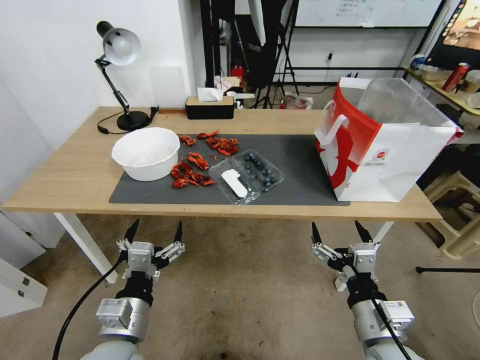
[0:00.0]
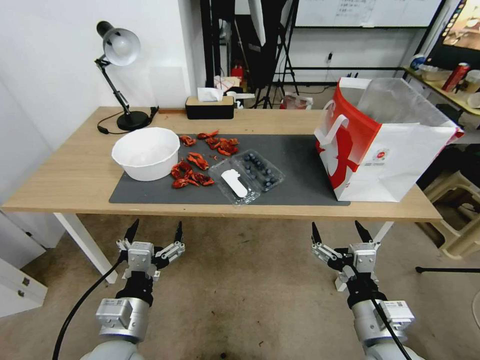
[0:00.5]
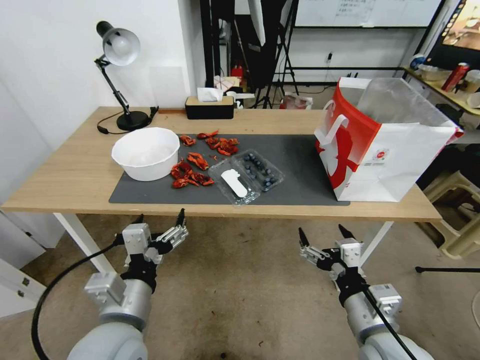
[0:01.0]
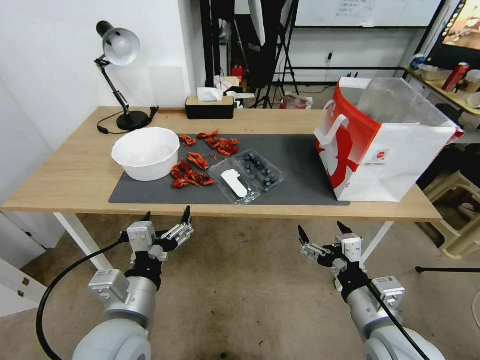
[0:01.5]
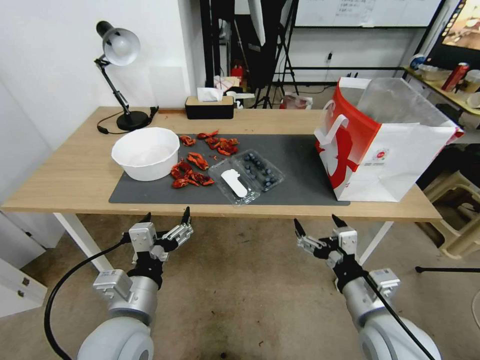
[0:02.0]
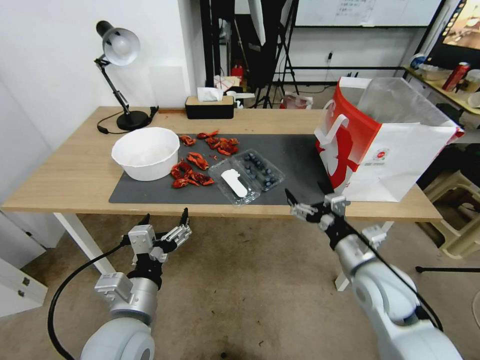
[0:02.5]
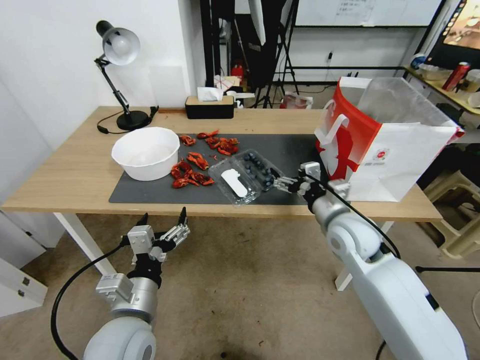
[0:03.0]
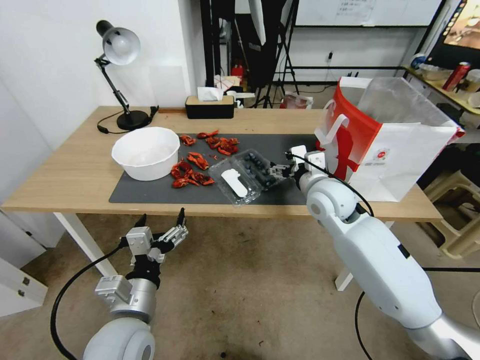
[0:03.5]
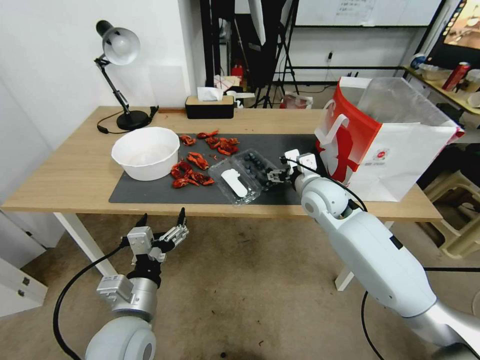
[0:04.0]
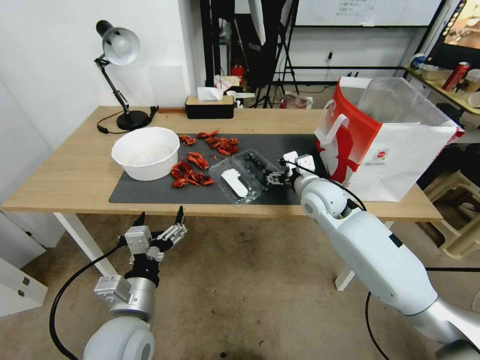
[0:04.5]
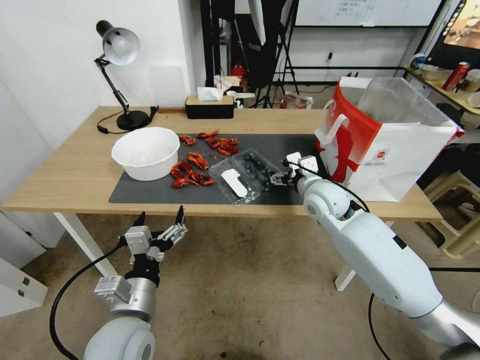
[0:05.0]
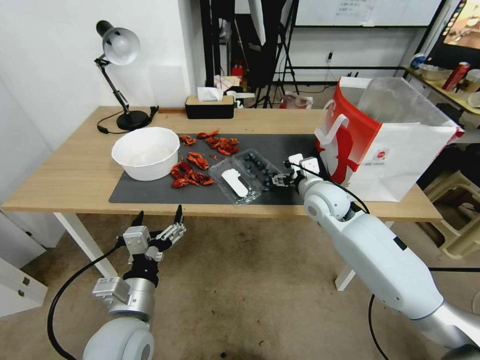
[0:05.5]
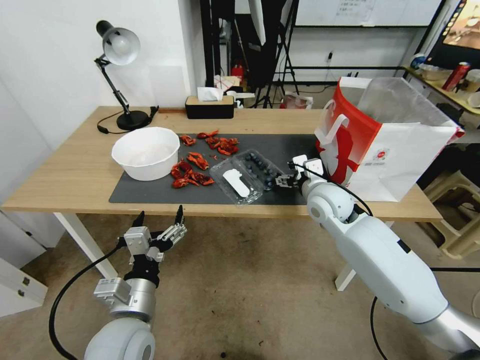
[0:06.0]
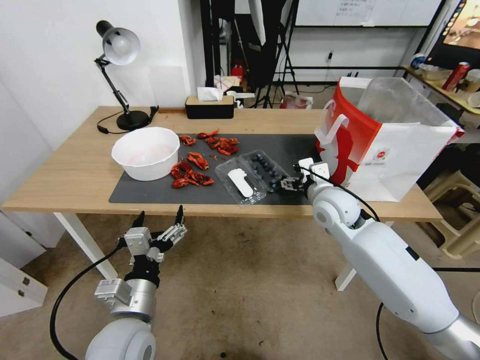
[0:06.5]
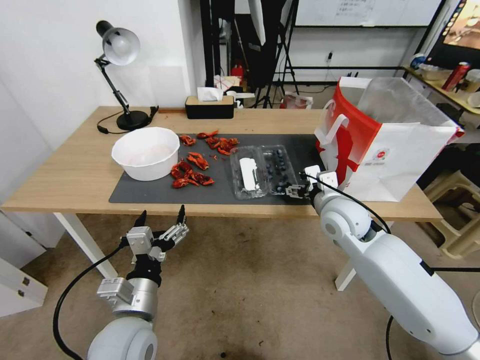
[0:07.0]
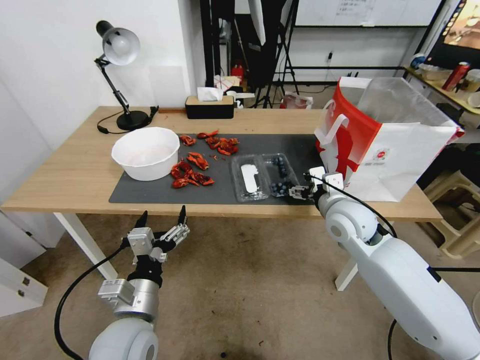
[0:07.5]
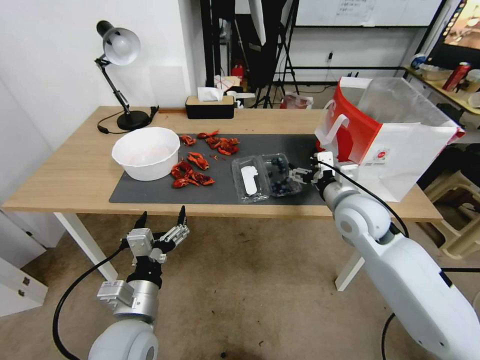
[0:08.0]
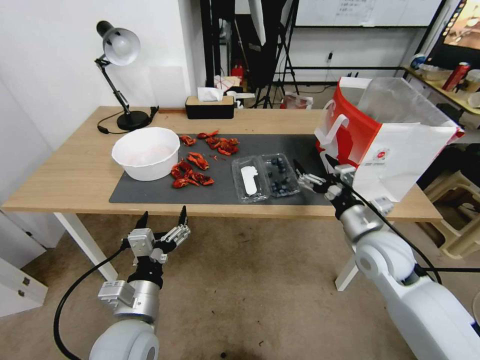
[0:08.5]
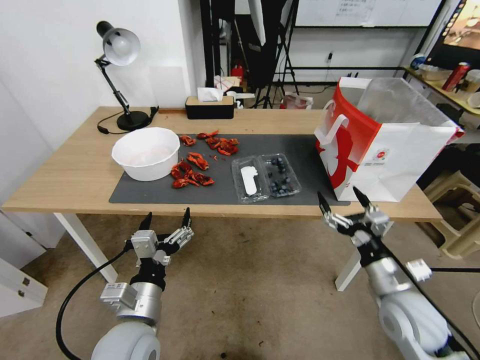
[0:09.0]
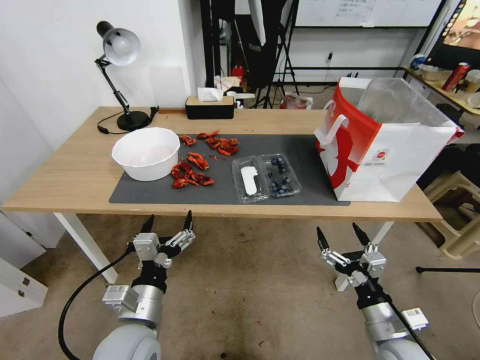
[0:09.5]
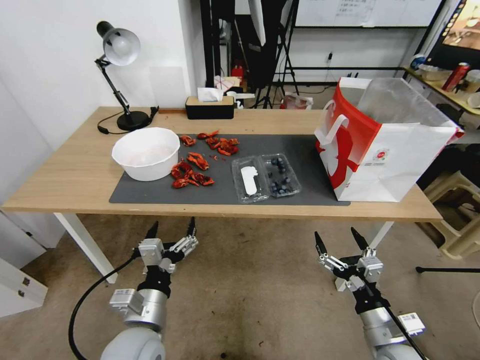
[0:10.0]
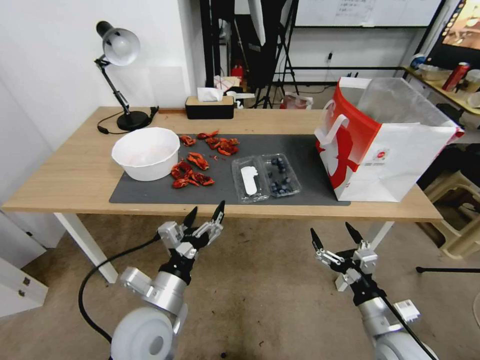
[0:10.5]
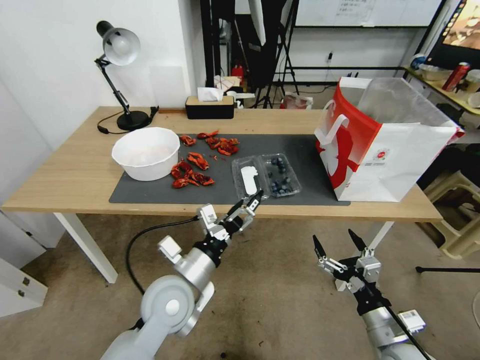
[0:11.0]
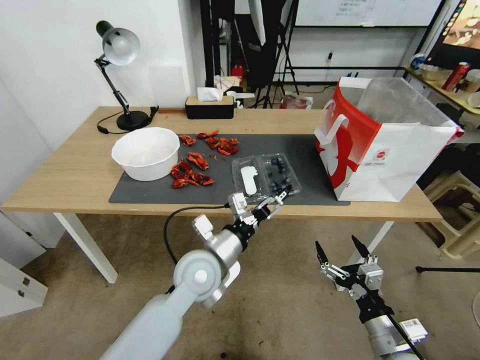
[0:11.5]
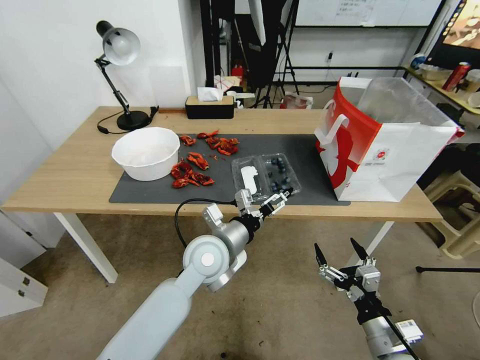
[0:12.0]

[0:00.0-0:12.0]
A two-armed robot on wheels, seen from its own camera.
Task of the whole recording: Close the takeout container lid, then place the container into the takeout bag.
0:02.0 to 0:04.0: The right gripper travels forward by some 25 cm.
0:04.0 to 0:06.0: The grippers stay close to where they were, moving slightly.
0:06.0 to 0:08.0: The right gripper shifts approximately 5 cm backward.
0:08.0 to 0:10.0: The right gripper moves backward and downward, about 30 cm.
0:10.0 to 0:12.0: The left gripper travels forward and to the right by approximately 20 cm.

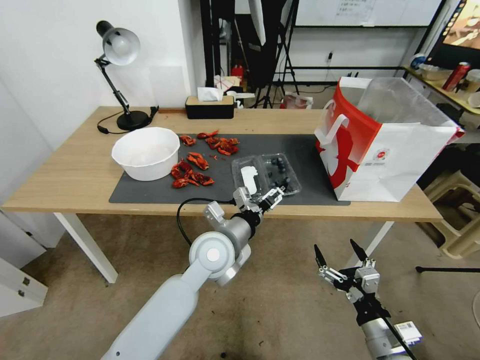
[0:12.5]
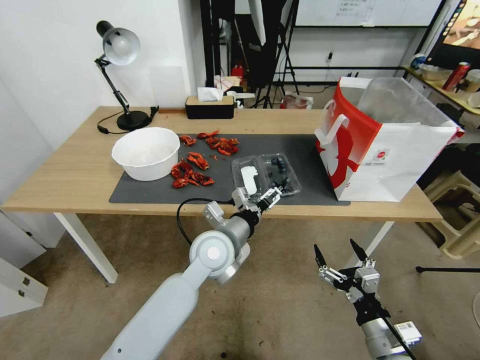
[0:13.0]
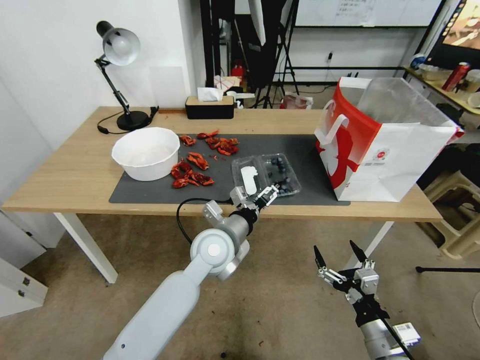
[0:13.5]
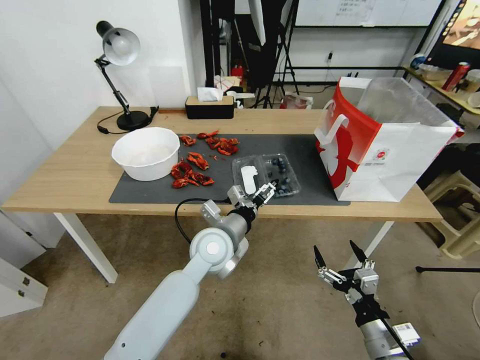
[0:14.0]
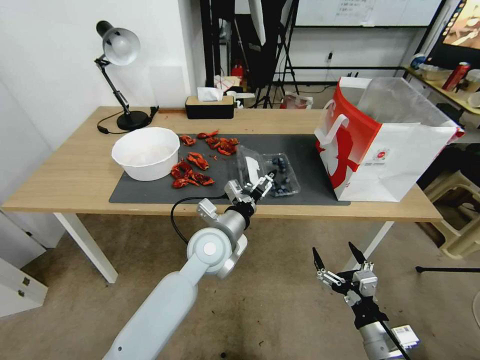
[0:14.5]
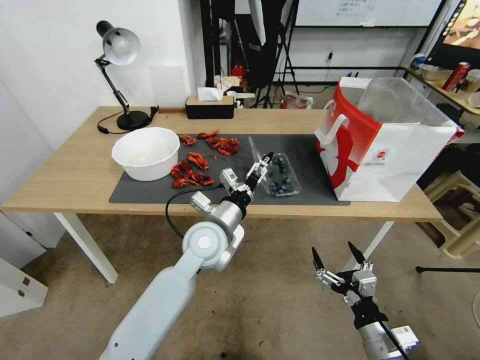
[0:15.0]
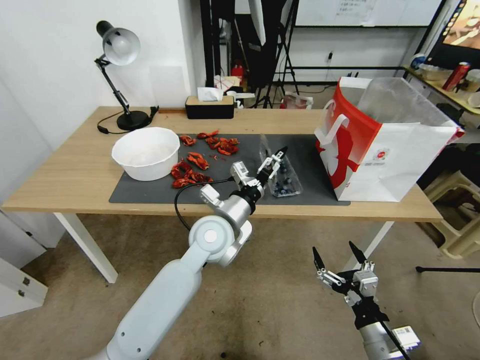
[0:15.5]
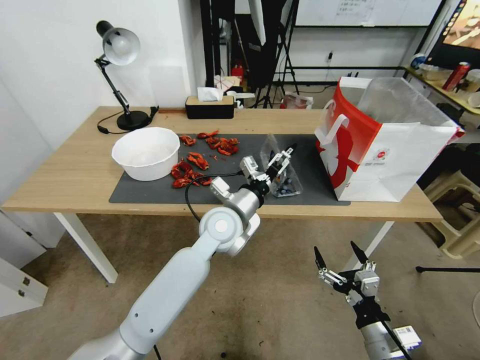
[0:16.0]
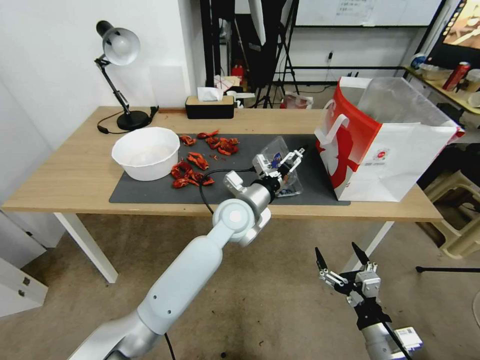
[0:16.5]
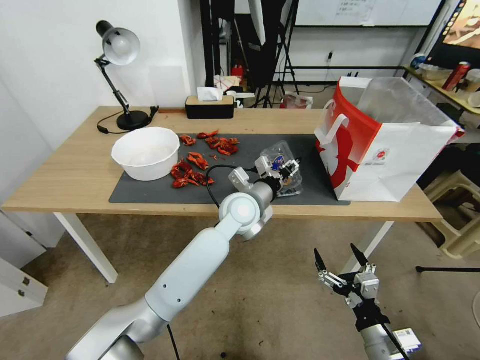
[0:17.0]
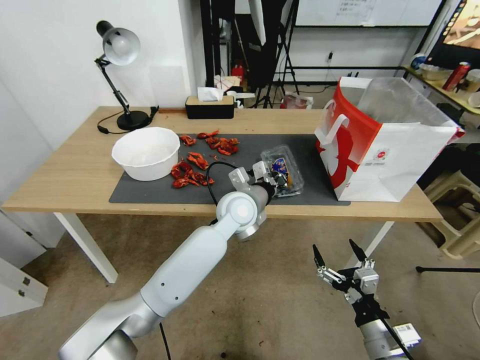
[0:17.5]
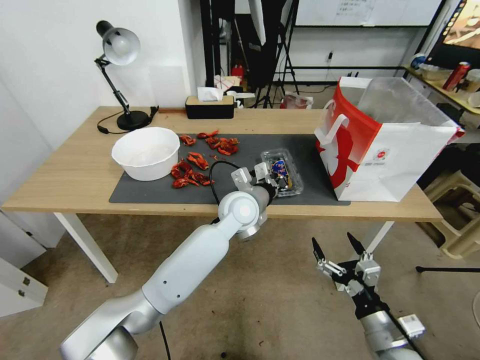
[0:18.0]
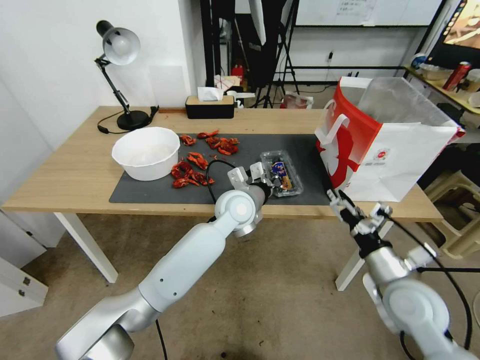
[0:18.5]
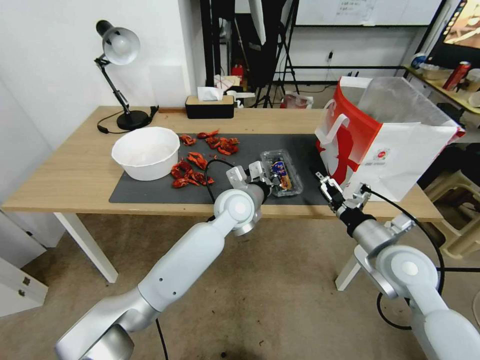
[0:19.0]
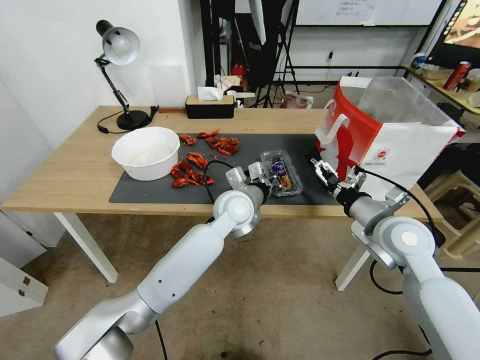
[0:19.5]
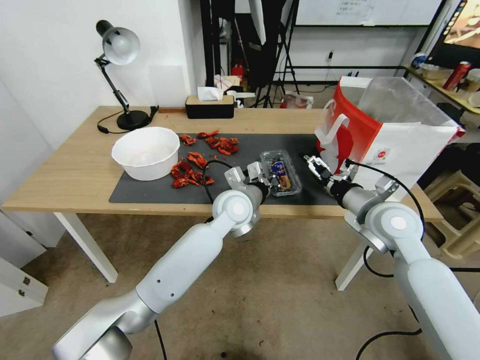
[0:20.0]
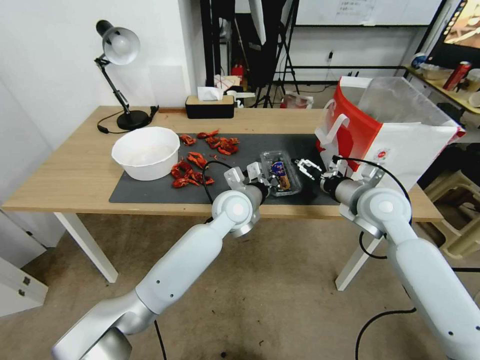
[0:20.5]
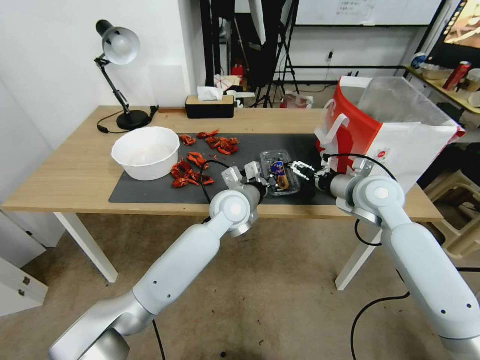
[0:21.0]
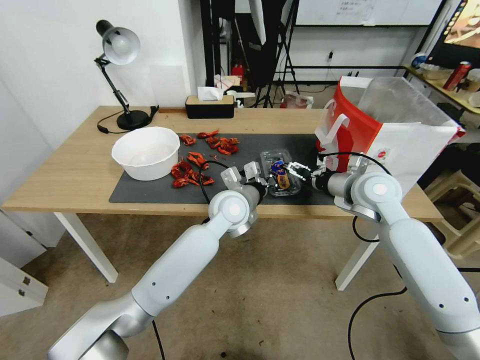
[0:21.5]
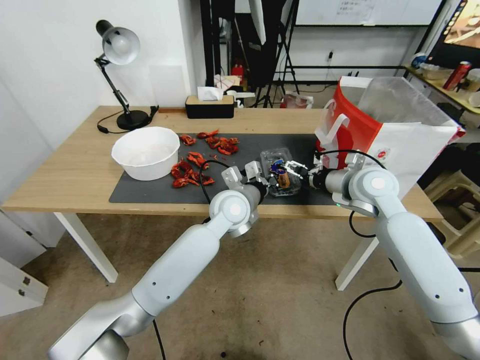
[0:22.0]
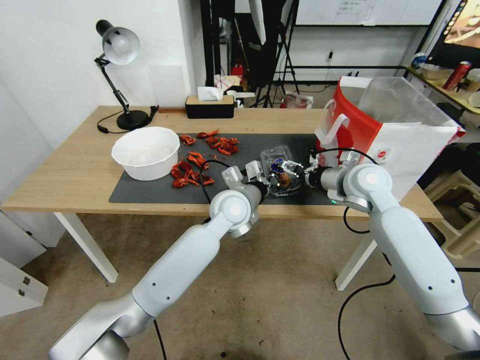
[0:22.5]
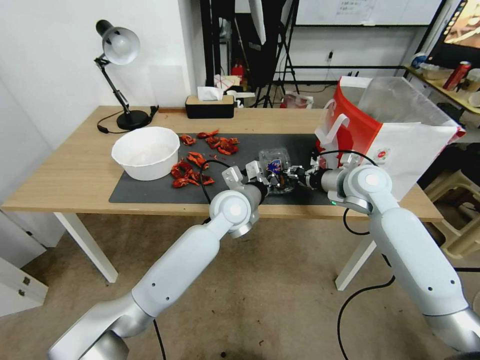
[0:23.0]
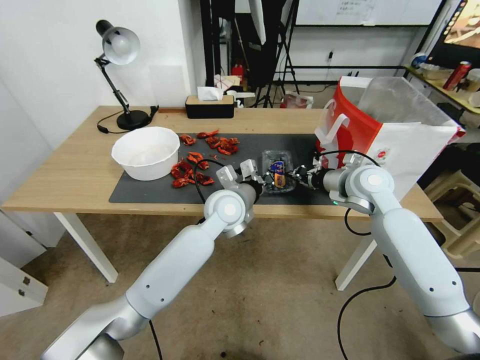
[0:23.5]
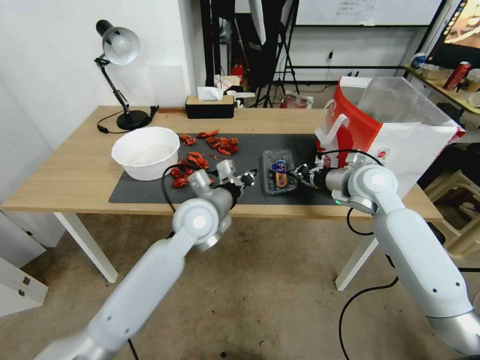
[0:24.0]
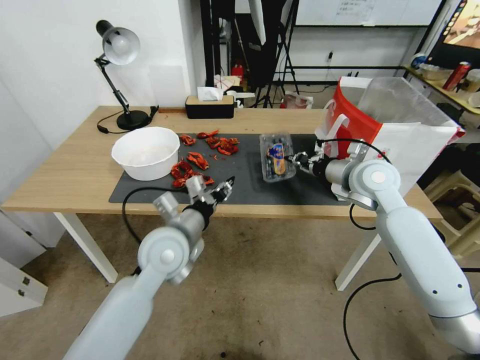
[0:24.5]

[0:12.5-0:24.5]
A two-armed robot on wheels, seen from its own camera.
Task of the whole recording: Close the takeout container lid, then place the container into the takeout bag.
0:12.5 to 0:14.5: The grippers make only small movements.
0:14.5 to 0:16.5: The left gripper is displaced forward and to the right by about 10 cm.
0:16.5 to 0:18.5: The right gripper goes about 15 cm forward and upward. The left gripper closes up.
0:18.5 to 0:20.5: The right gripper heads forward and upward, covering about 20 cm.
0:20.5 to 0:22.5: The right gripper shifts roughly 5 cm forward.
0:22.5 to 0:24.5: The left gripper travels to the left and backward by roughly 15 cm. The right gripper closes its fingers.

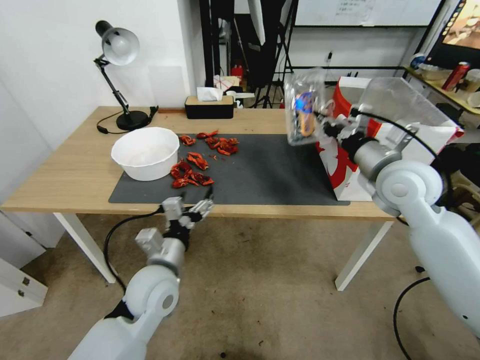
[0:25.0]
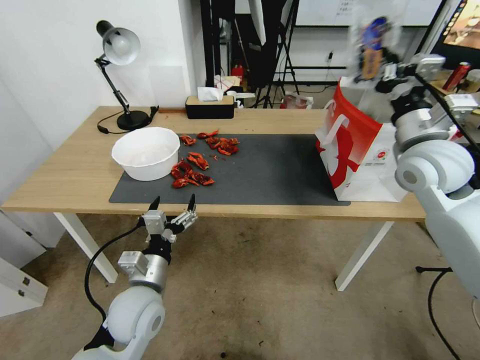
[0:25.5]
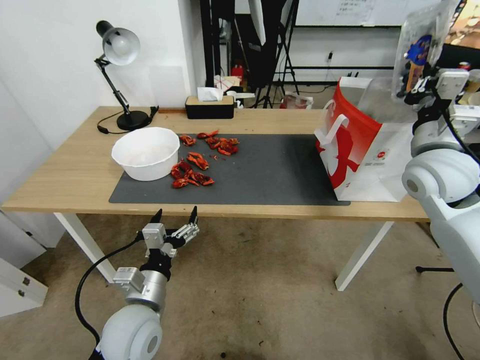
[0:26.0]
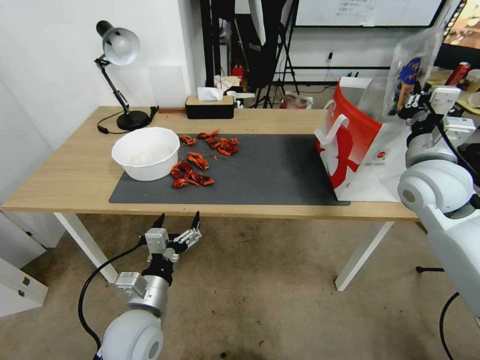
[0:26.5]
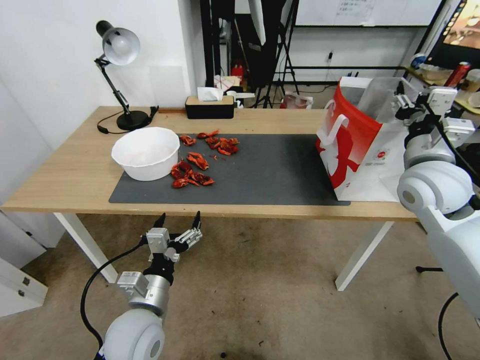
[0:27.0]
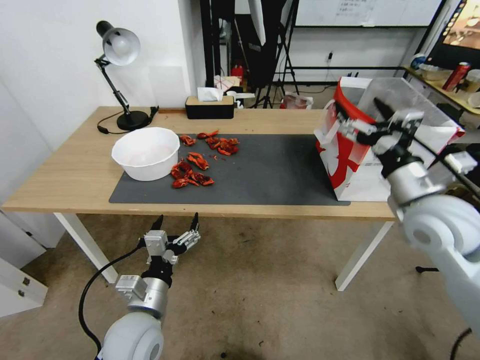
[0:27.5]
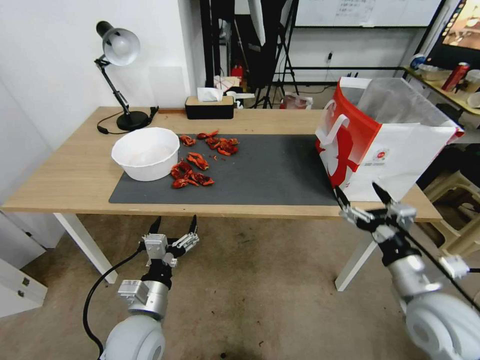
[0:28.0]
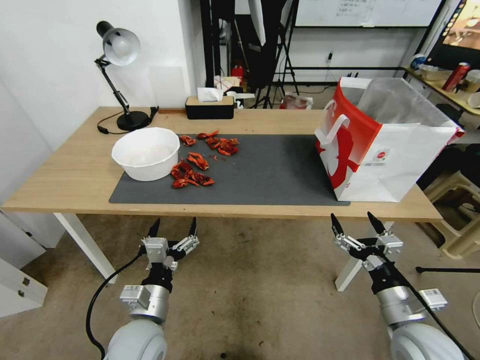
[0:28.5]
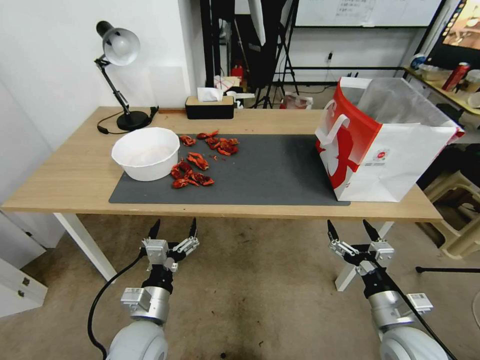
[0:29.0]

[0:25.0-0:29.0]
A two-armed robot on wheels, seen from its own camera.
Task of the whole recording: Close the takeout container lid, then place the container into the takeout bag.
0:25.0 to 0:27.0: The left gripper travels backward by about 10 cm, while the right gripper opens its fingers.
0:27.0 to 0:29.0: The right gripper heads downward and backward, covering roughly 30 cm.
